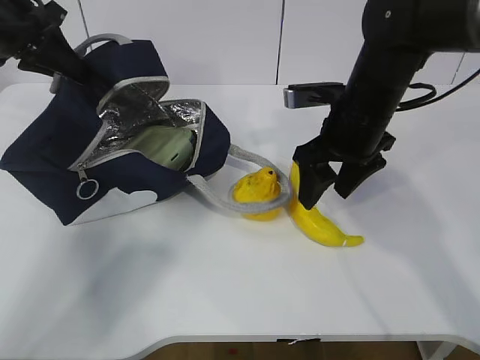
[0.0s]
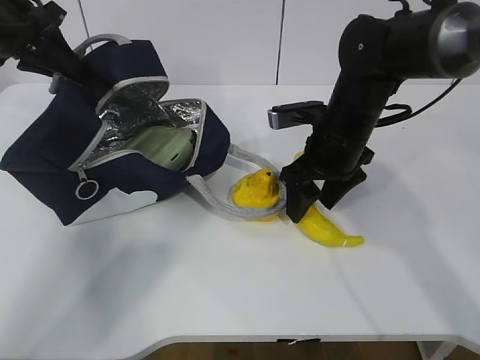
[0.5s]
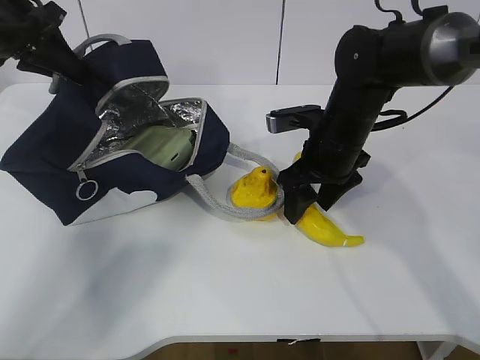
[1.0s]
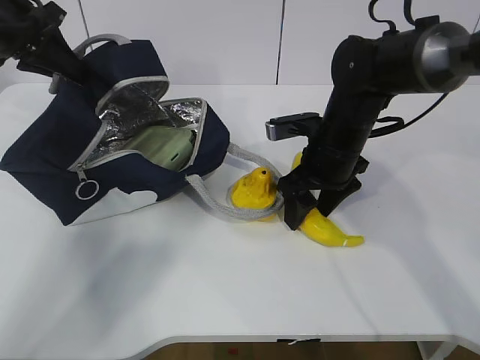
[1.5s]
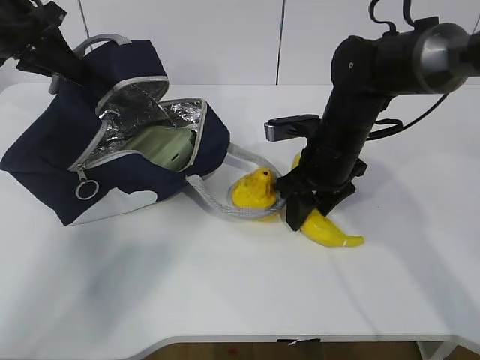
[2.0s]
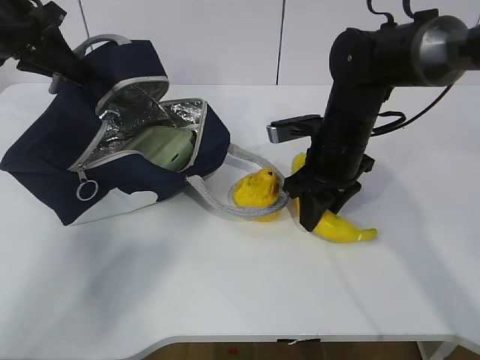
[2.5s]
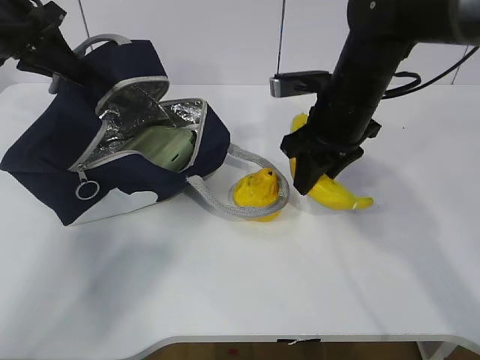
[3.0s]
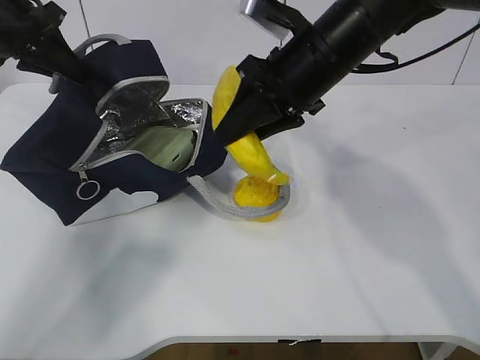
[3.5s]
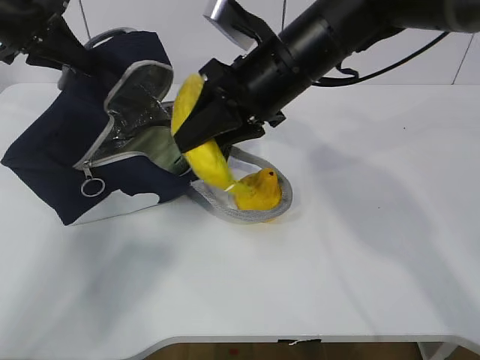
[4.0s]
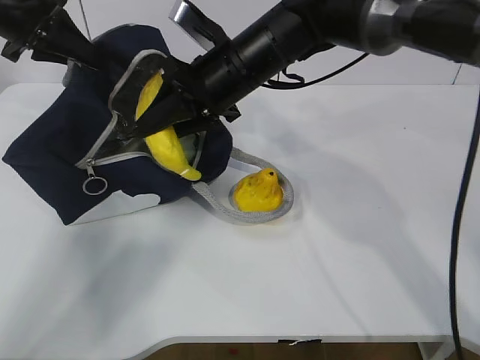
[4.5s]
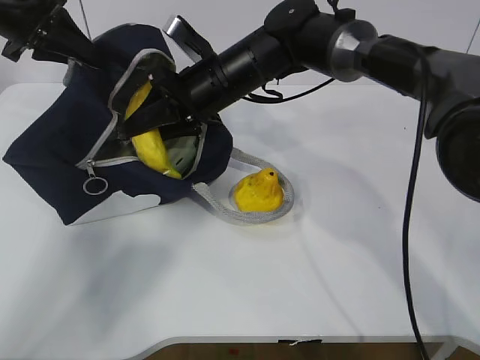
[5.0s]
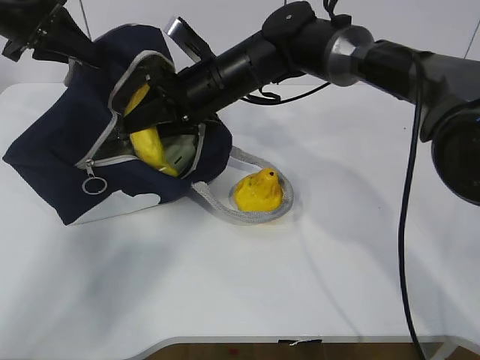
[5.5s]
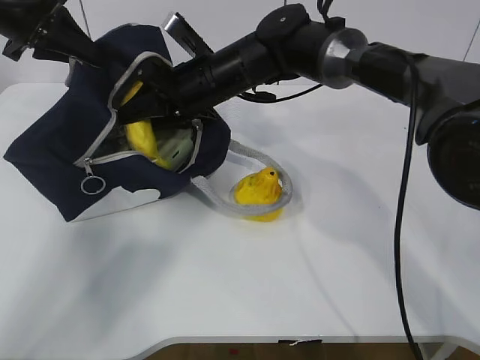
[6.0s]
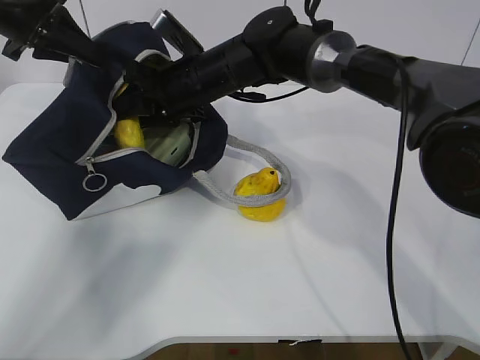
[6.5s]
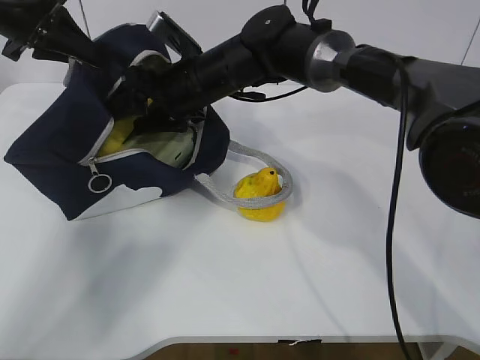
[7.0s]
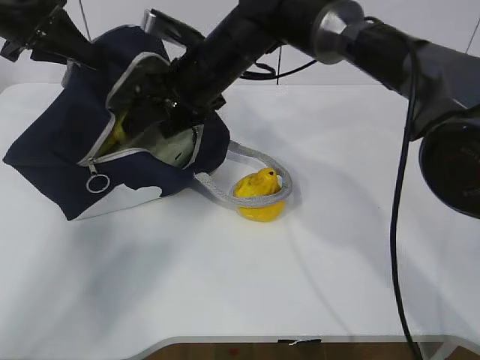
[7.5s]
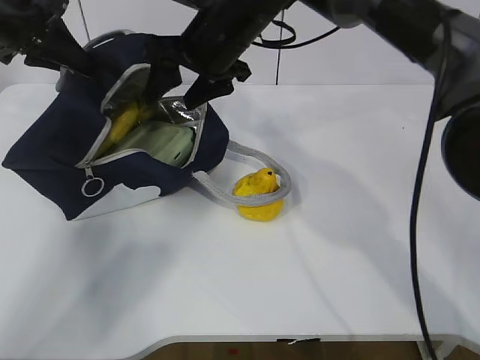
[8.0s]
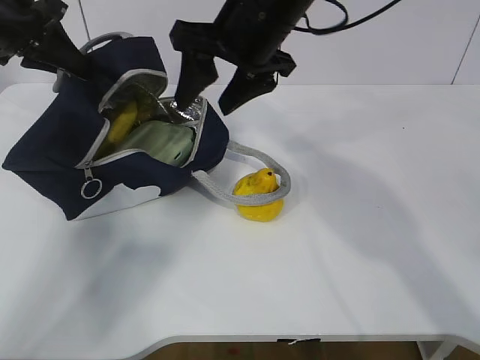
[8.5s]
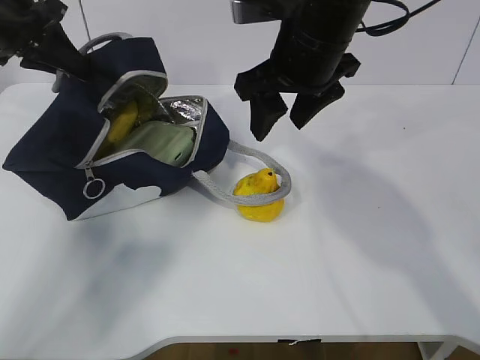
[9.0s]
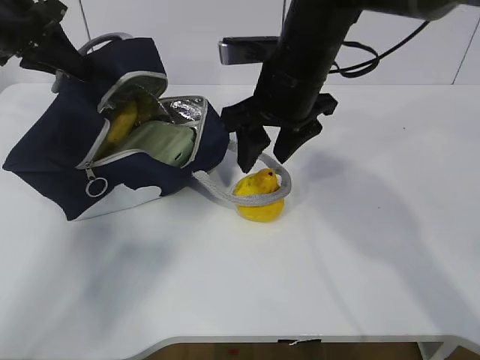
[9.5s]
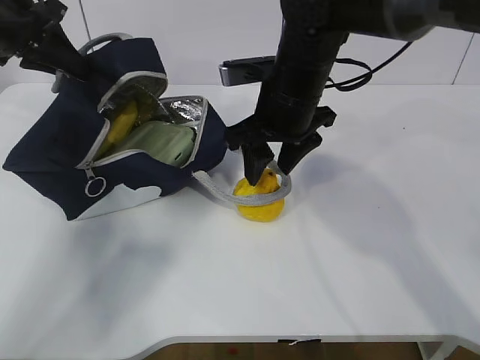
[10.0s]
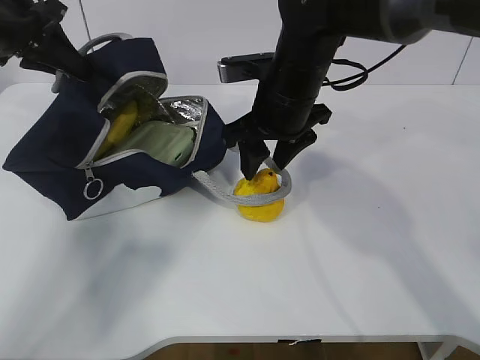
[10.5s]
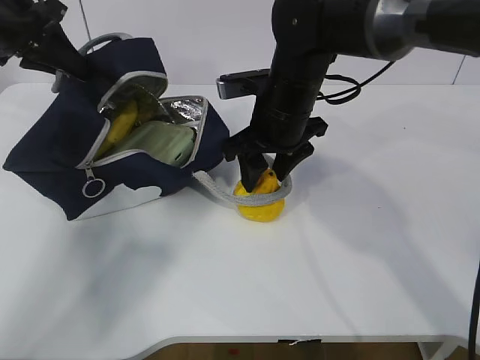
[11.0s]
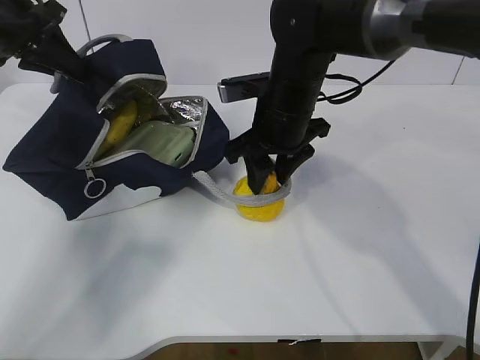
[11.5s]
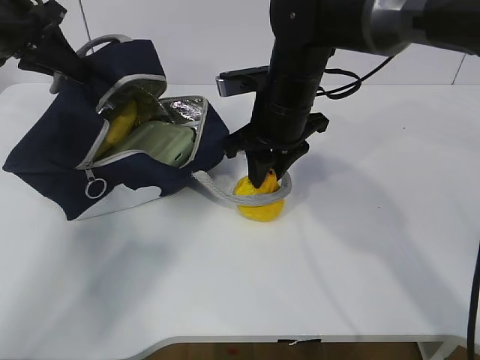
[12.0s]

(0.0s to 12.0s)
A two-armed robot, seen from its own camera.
Step, 2.5s - 6.0s: Grab the pear with your right hand.
Step, 9.0s - 9.5s: Grab the lunch bag with your right hand.
0.0s - 2.0s: The right gripper travels downward by roughly 5 cm.
2.0s - 4.0s: The right gripper shifts about 15 cm upward and to the left.
4.0s - 6.0s: The right gripper heads forward, to the left and downward, covering some 10 cm.
6.0s - 8.0s: The right gripper goes some 5 cm upward, and opens its fingers.
8.0s - 10.0s: The right gripper is displaced to the right and backward by roughly 10 cm.
10.0s - 12.0s: The grippers make only small movements.

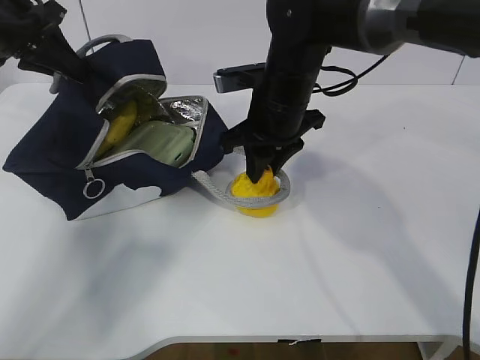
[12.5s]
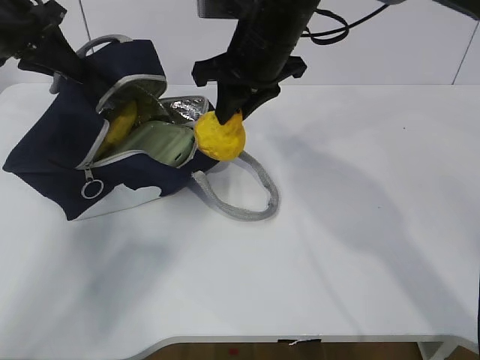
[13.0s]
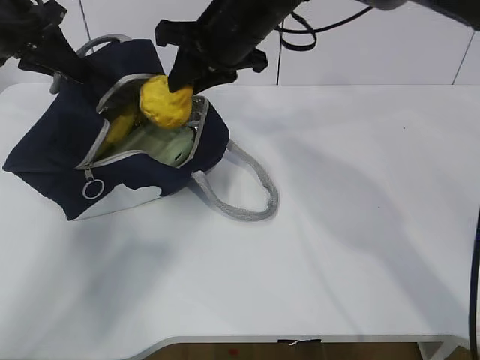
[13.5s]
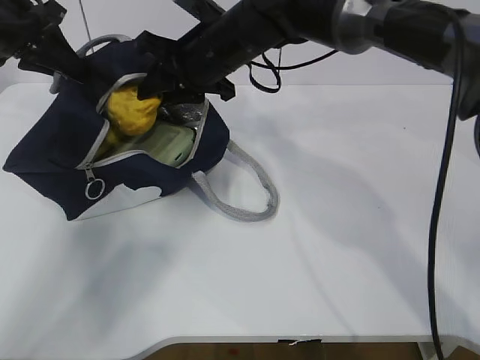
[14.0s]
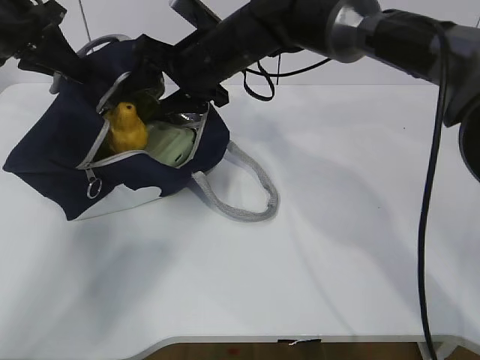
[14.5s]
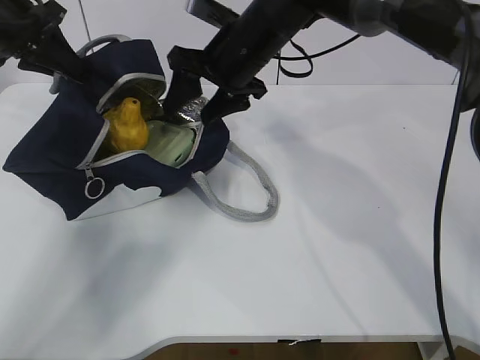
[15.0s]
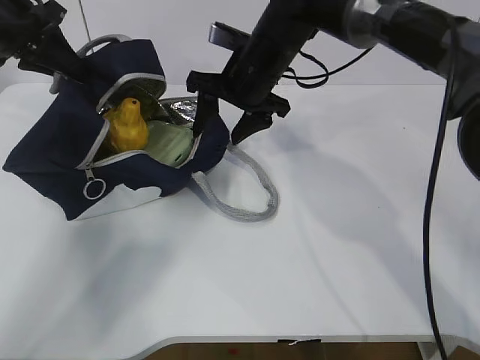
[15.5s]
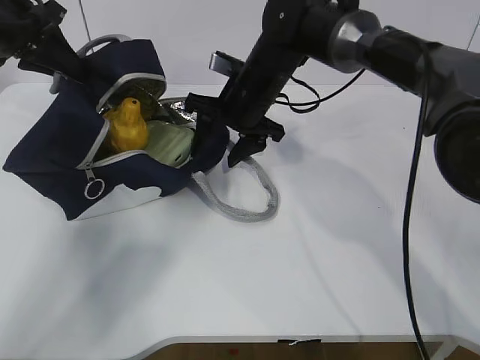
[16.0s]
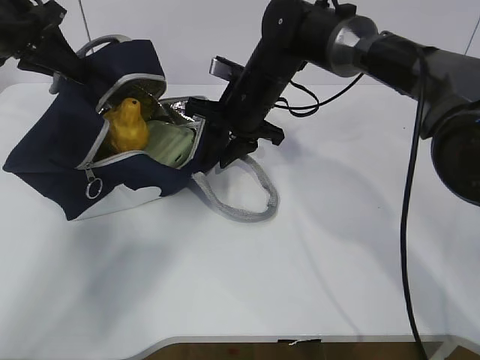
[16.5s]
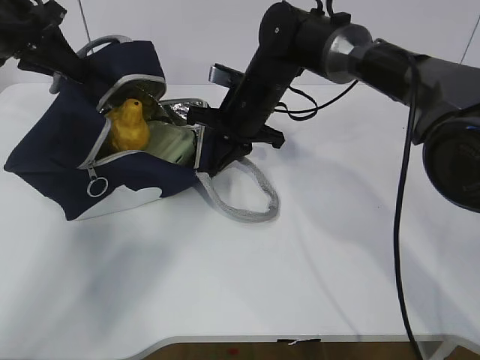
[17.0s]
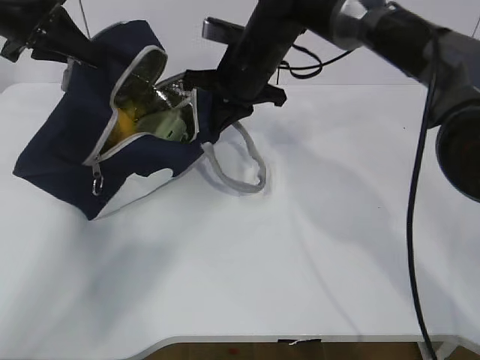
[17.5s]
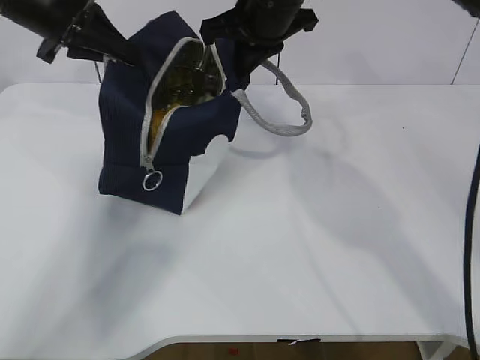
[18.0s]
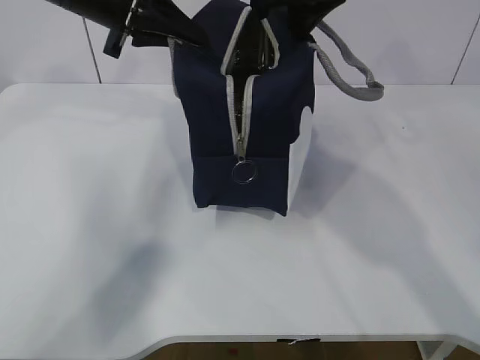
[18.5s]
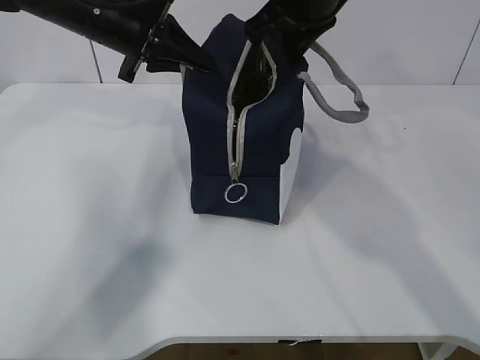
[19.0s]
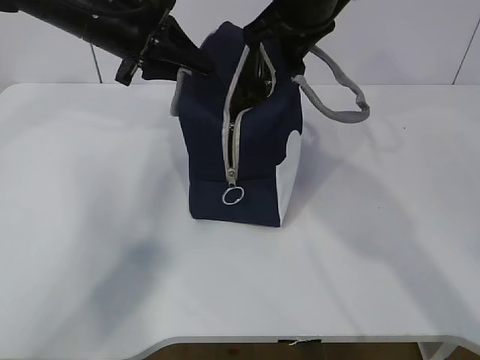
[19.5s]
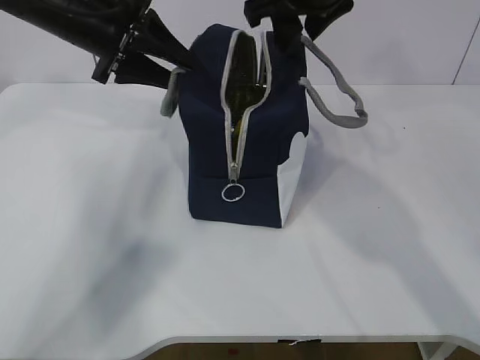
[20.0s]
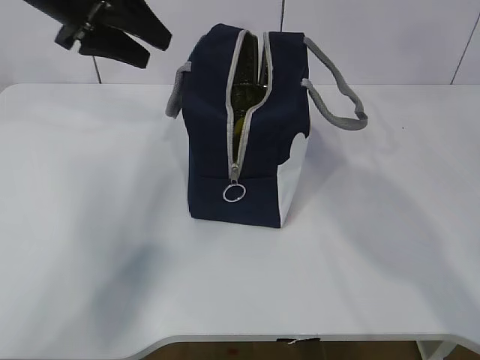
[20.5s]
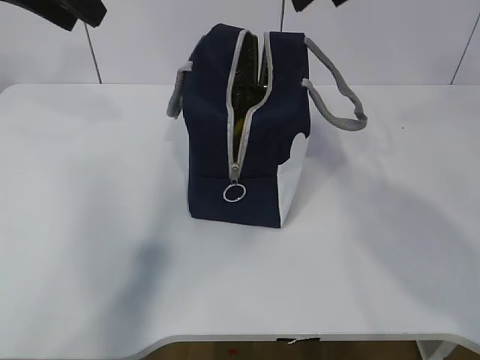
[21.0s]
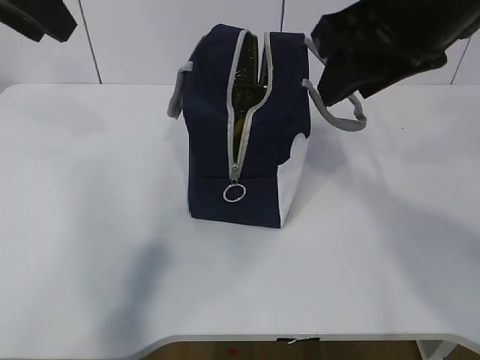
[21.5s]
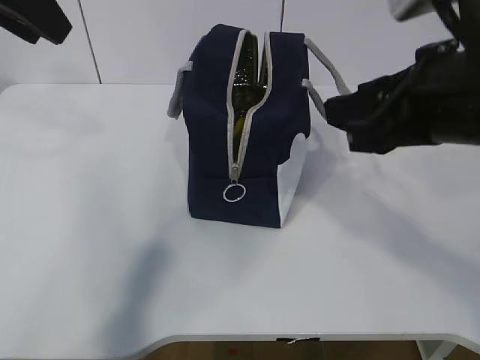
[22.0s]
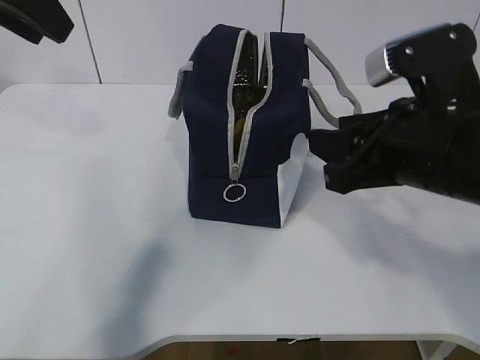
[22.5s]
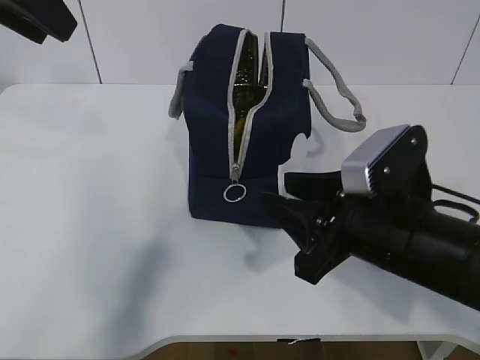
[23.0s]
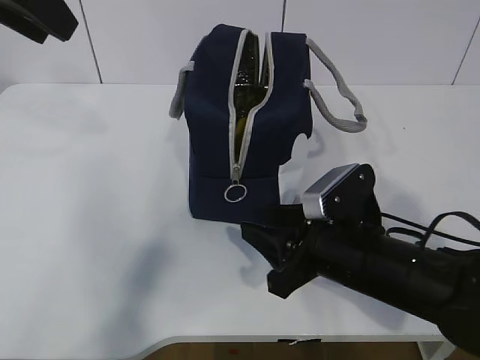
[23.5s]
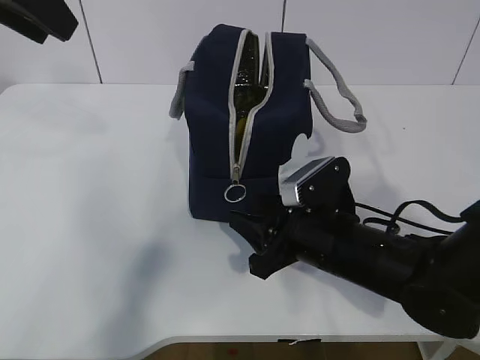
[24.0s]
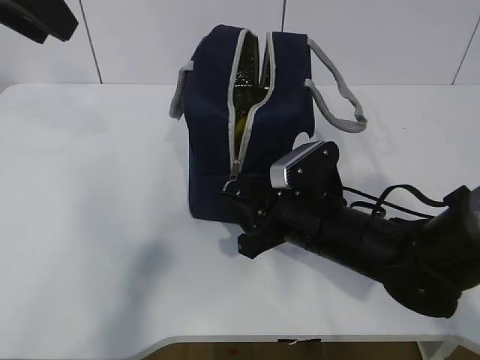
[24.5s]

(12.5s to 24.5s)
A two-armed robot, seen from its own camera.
12.5s - 14.5s: The right gripper heads to the left, covering about 5 cm, and opens its fingers.
14.5s - 16.5s: The right gripper goes about 5 cm downward, and closes.
16.5s - 18.5s: The right gripper goes approximately 20 cm upward, and closes its fingers. The left gripper heads to the right, covering some 10 cm.
18.5s - 20.5s: The left gripper opens its fingers; the right gripper ends up some 5 cm from where it was, and opens its fingers.
20.5s - 22.5s: The left gripper goes approximately 15 cm backward and upward, while the right gripper shifts some 20 cm downward and backward.
22.5s - 24.5s: The right gripper heads downward and to the left, covering approximately 15 cm.

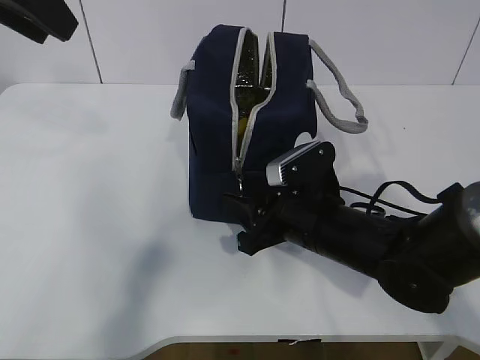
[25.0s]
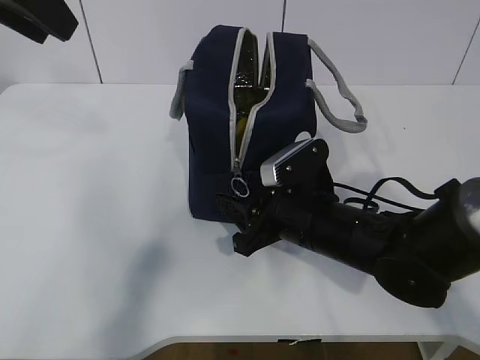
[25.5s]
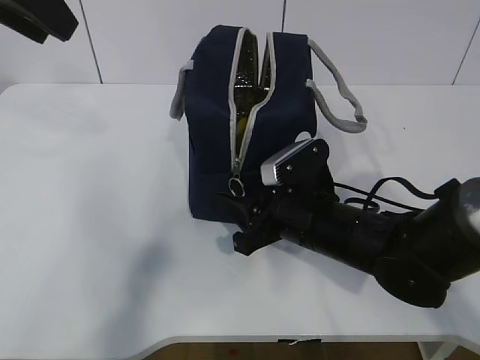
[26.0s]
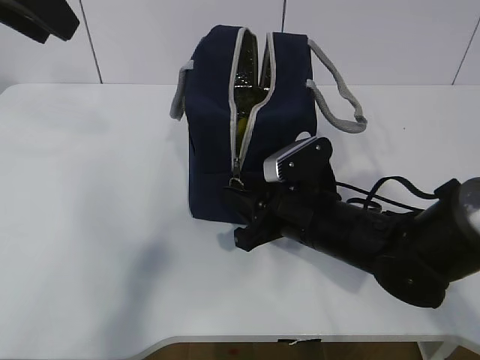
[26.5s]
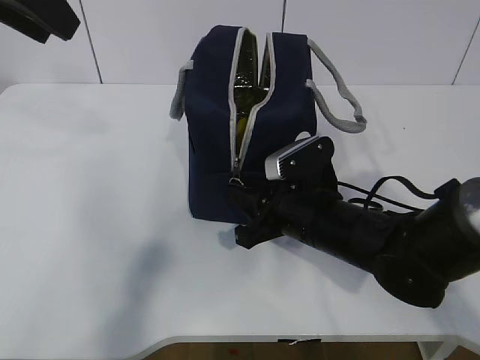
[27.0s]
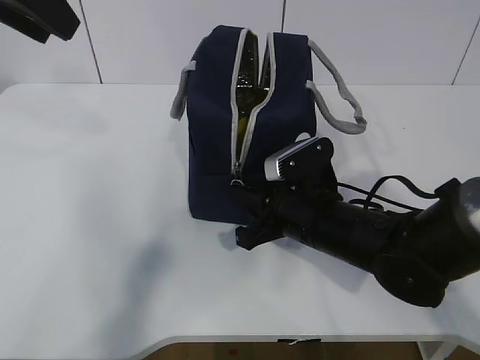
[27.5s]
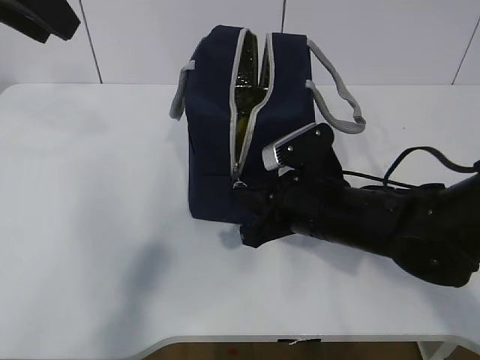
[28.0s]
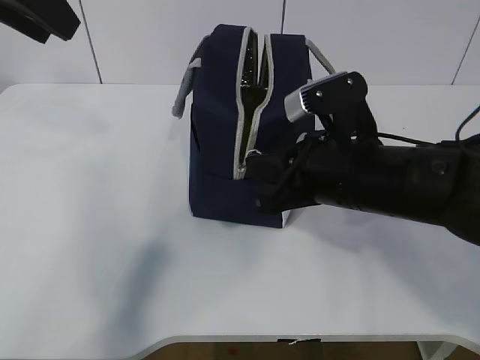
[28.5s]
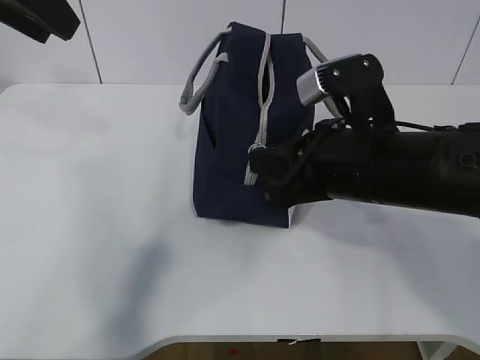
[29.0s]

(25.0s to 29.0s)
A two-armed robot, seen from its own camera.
25.0s - 27.0s: The right gripper closes up.
27.0s - 29.0s: The right gripper shifts roughly 10 cm upward.
